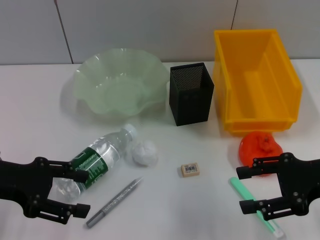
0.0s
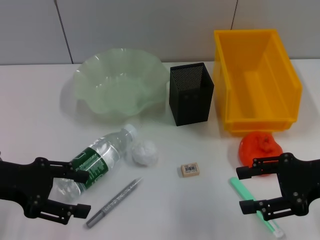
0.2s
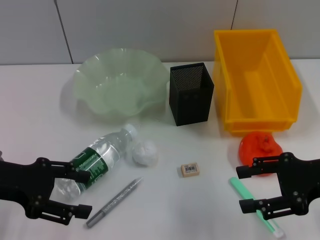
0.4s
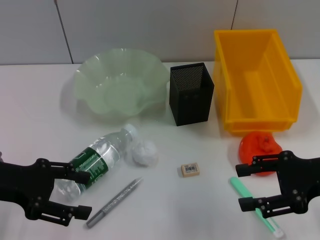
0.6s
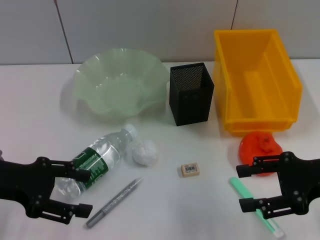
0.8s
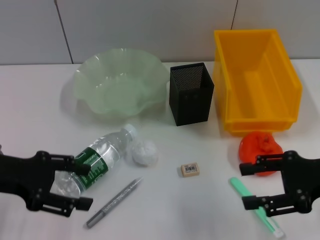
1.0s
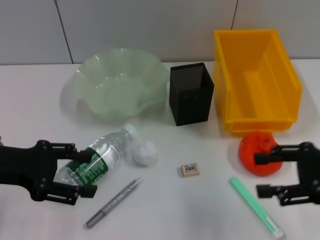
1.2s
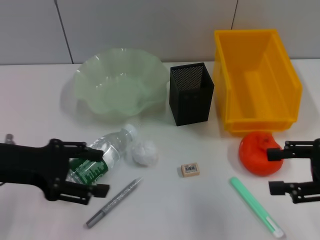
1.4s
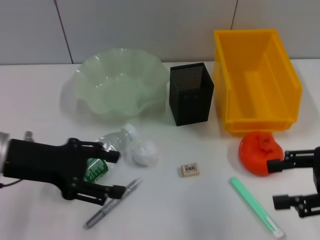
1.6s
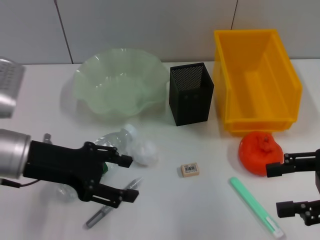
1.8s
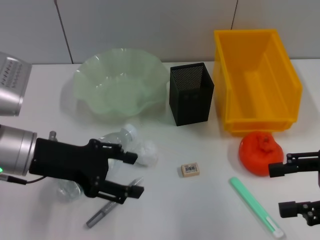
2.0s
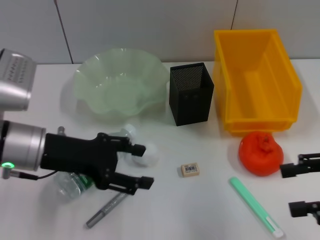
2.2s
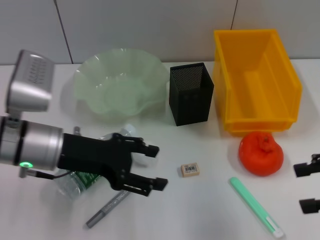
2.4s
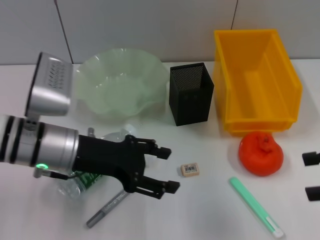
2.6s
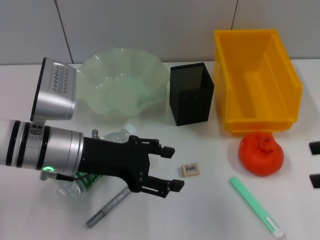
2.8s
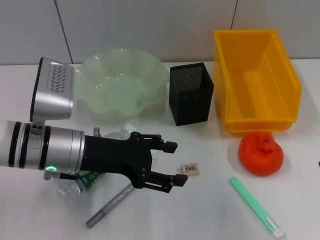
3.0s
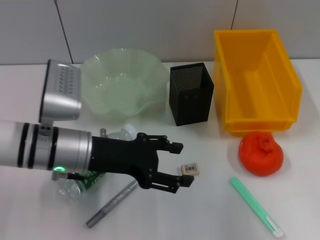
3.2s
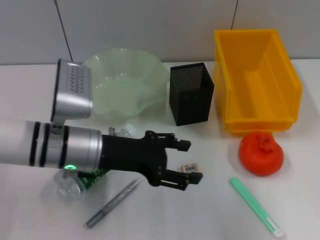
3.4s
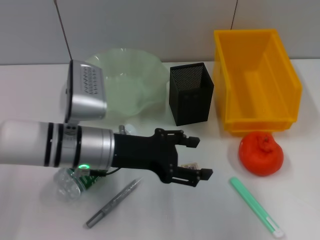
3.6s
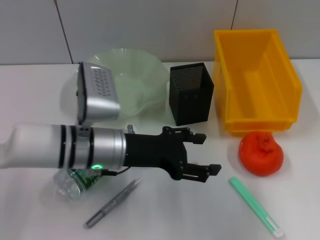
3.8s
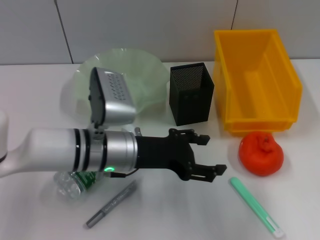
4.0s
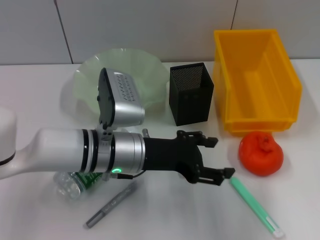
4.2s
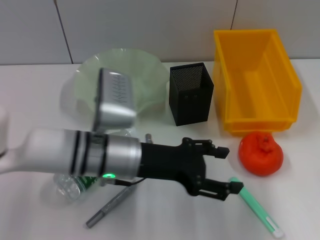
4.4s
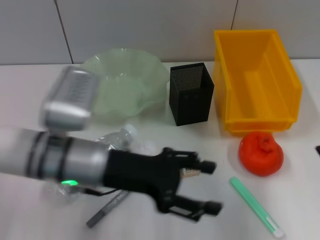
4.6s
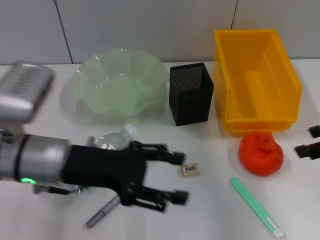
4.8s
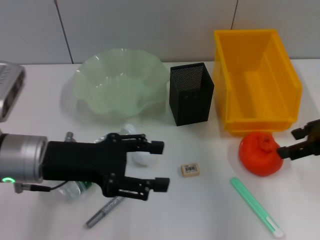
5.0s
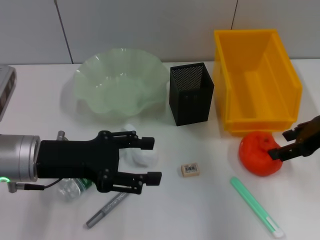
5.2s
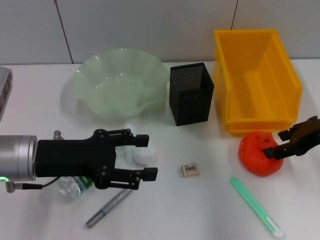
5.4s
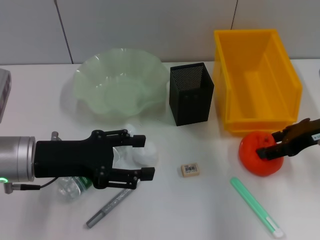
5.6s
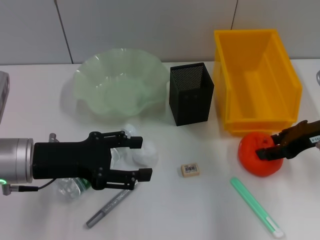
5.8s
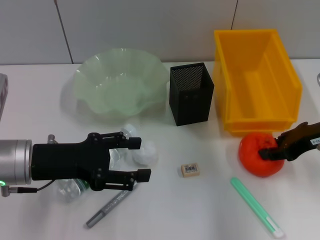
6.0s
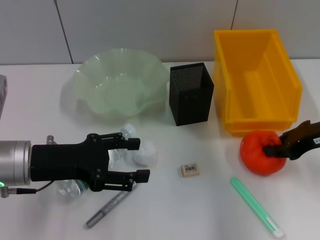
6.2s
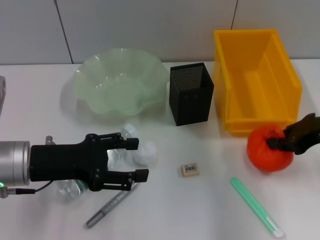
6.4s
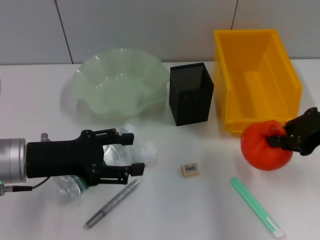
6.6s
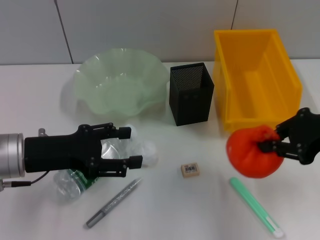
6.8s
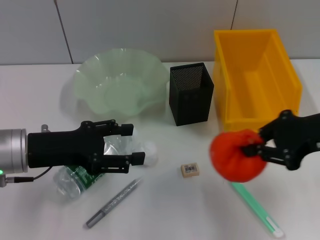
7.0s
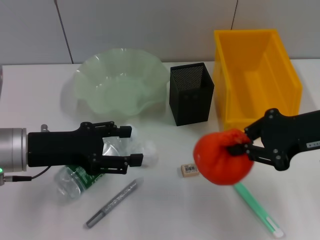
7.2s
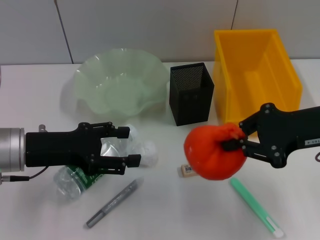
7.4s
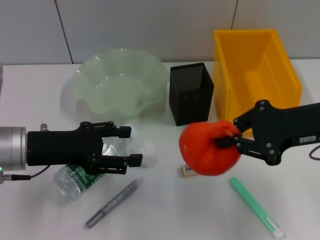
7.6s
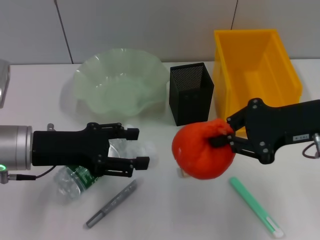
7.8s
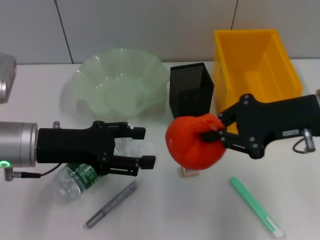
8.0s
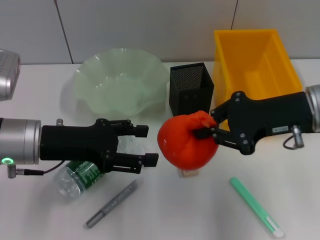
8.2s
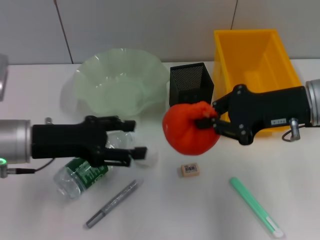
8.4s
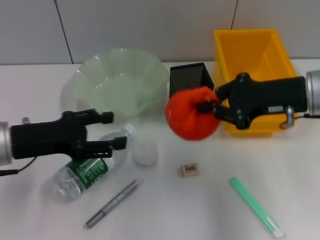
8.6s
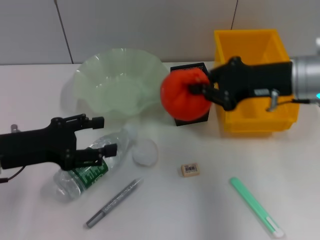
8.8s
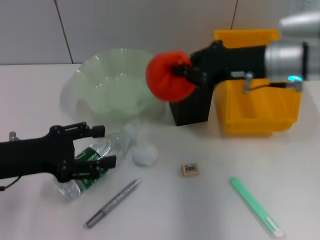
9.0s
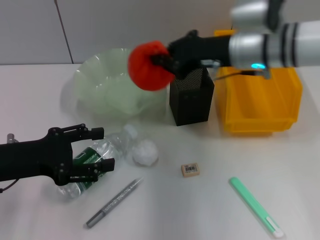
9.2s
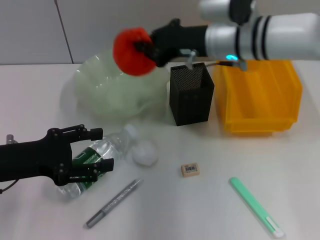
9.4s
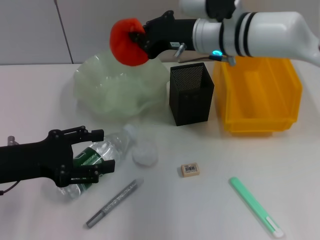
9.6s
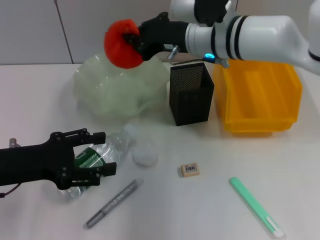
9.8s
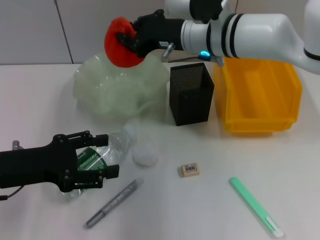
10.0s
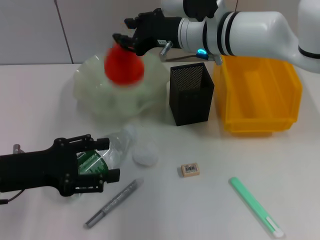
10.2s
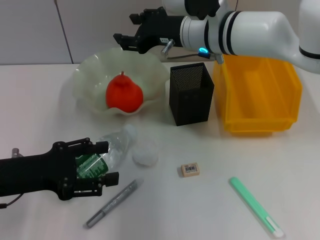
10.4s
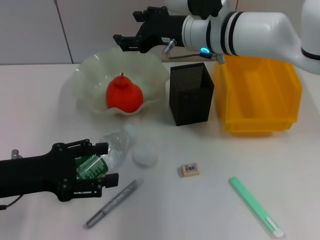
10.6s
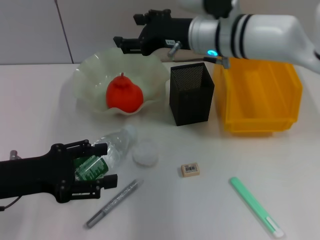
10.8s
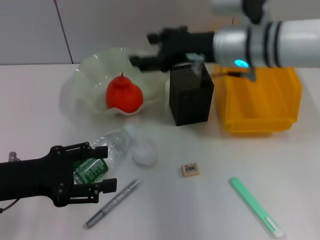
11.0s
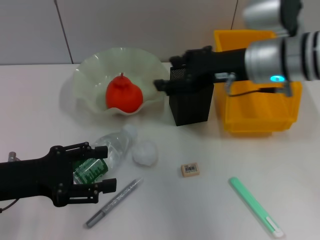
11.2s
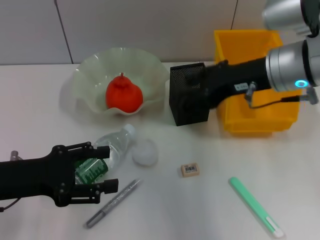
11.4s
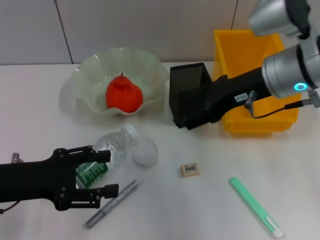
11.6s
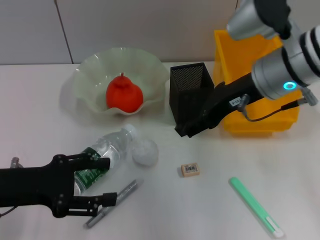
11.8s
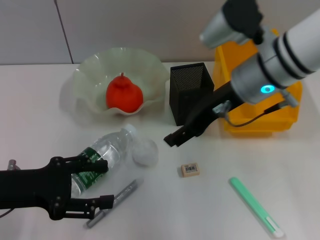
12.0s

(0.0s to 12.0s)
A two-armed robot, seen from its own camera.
Step, 0.0s - 6.0s: Grab the orange with the right hand.
Step, 6.2s - 10.2s: Place the orange into the fruit bowl with the right hand.
0.0s - 1.6s: The grippers stay close to where they were, moving slightly.
1.6s - 3.0s: The left gripper moves to the right, about 10 cm, while the right gripper shifts about 10 cm upward.
3.0s - 4.4s: The left gripper heads to the right, covering about 5 cm.
4.4s - 6.0s: The left gripper is displaced to the left by about 15 cm, while the right gripper heads downward, forward and to the left, covering approximately 15 cm.
6.0s - 7.6s: The right gripper shifts by approximately 5 cm, and closes.
7.6s - 9.0s: The right gripper heads forward and to the left, covering some 10 cm.
9.0s - 10.4s: The right gripper moves to the left and forward, approximately 10 cm, and opens its fingers.
10.4s - 12.0s: The right gripper heads backward and to the right, covering roughly 10 cm.

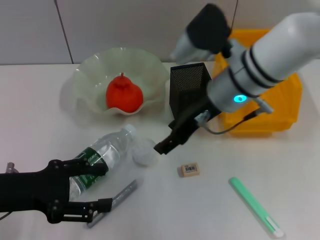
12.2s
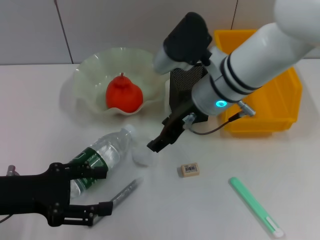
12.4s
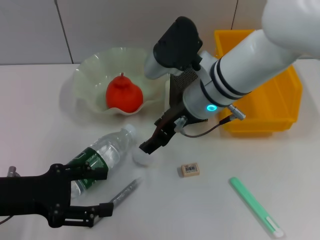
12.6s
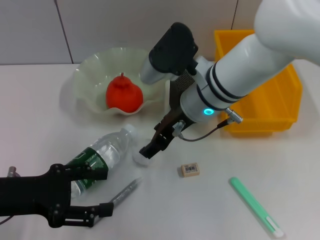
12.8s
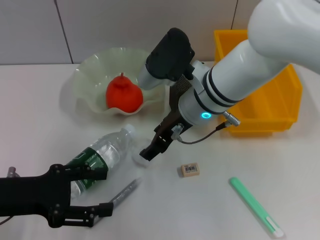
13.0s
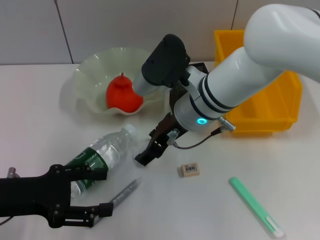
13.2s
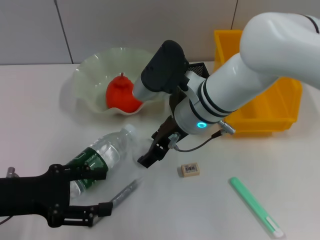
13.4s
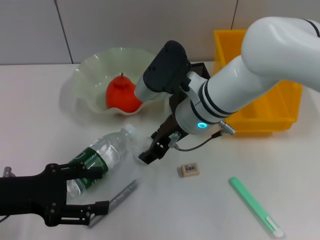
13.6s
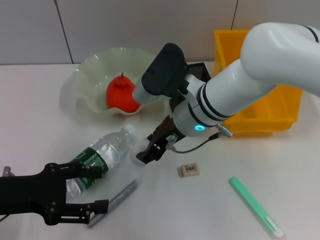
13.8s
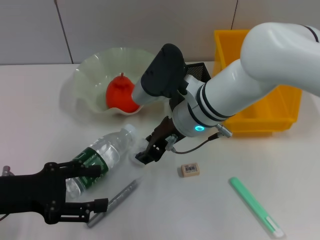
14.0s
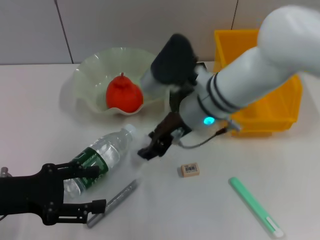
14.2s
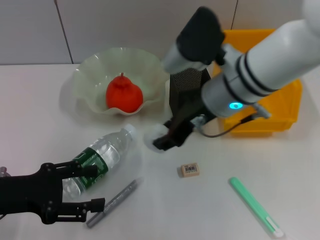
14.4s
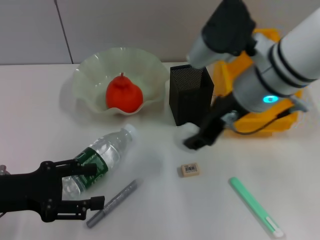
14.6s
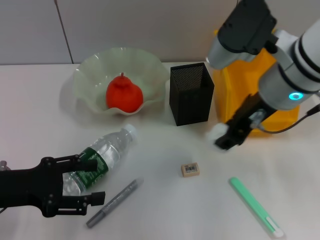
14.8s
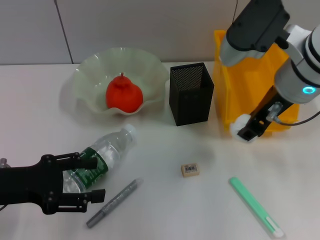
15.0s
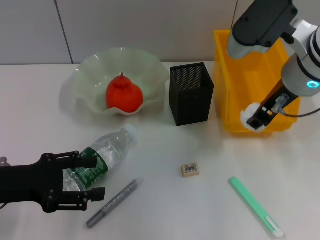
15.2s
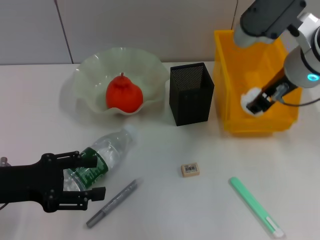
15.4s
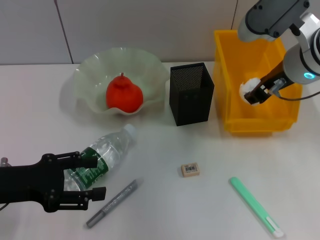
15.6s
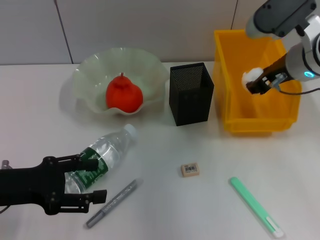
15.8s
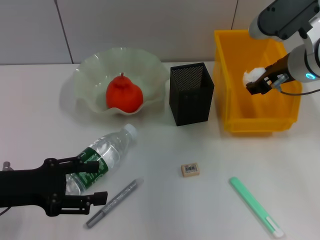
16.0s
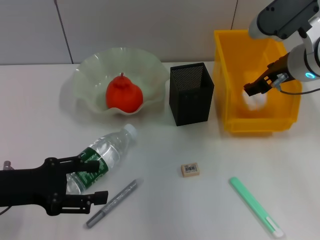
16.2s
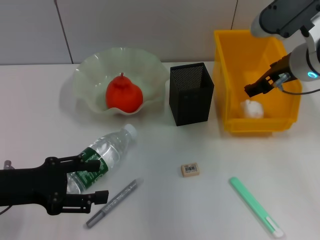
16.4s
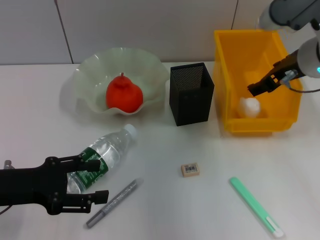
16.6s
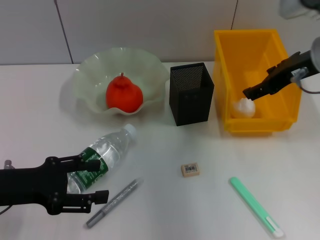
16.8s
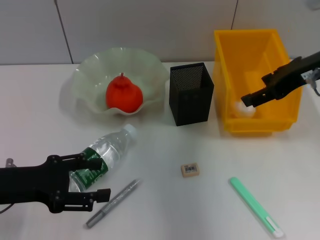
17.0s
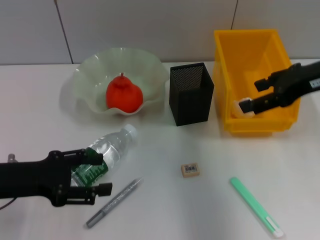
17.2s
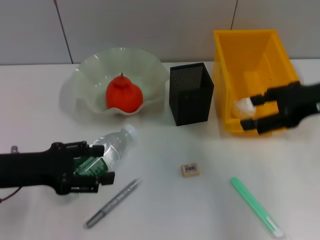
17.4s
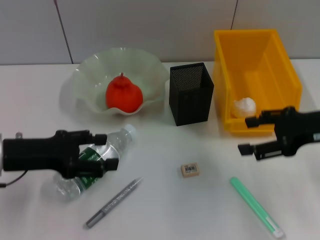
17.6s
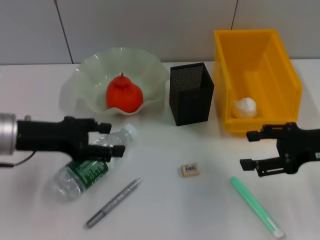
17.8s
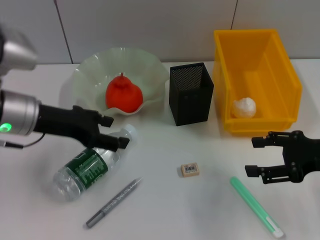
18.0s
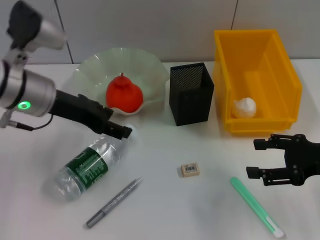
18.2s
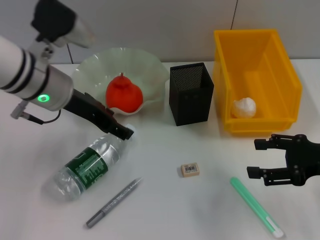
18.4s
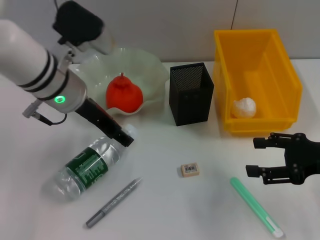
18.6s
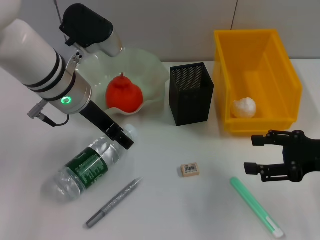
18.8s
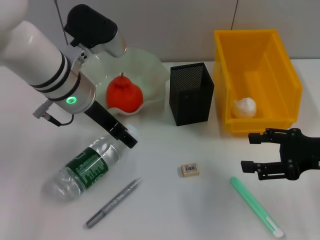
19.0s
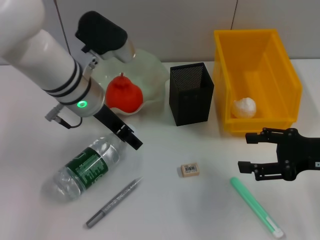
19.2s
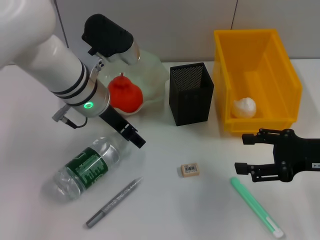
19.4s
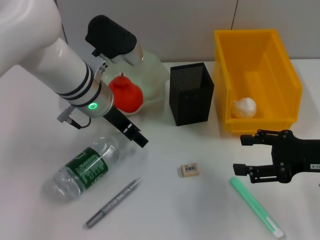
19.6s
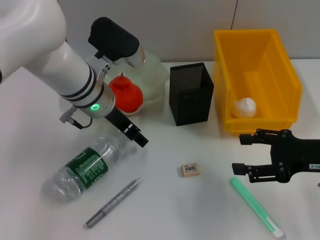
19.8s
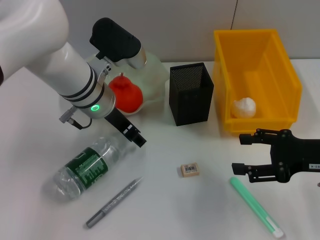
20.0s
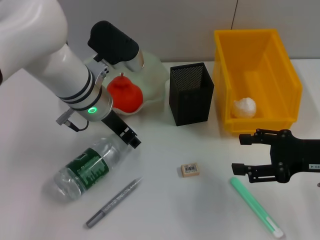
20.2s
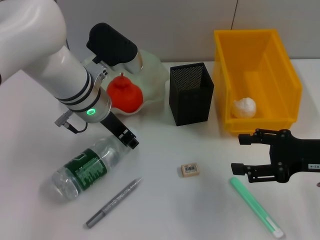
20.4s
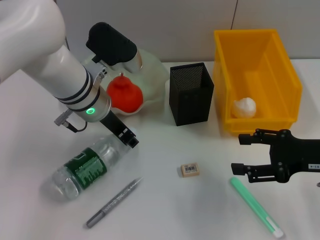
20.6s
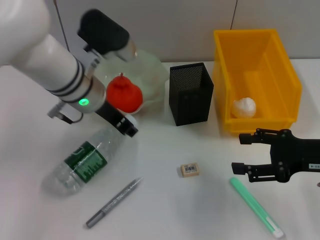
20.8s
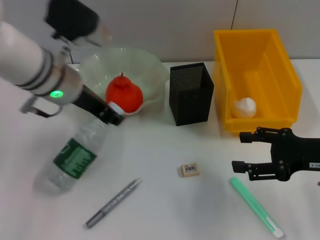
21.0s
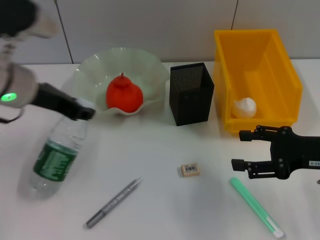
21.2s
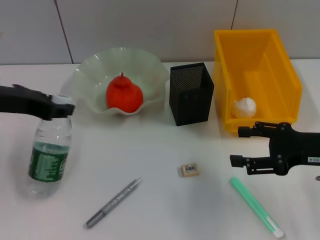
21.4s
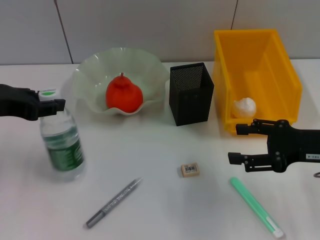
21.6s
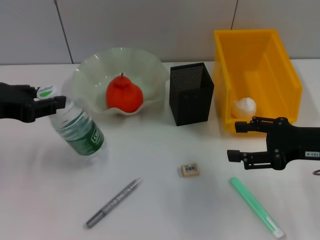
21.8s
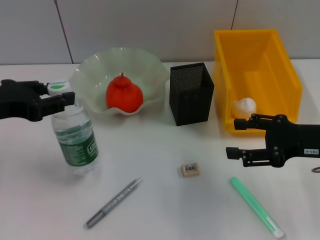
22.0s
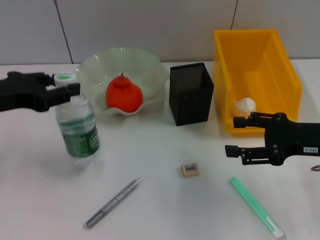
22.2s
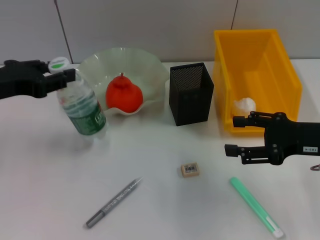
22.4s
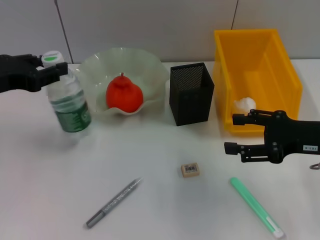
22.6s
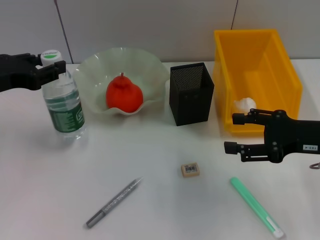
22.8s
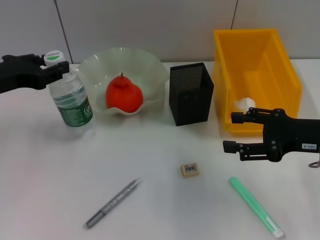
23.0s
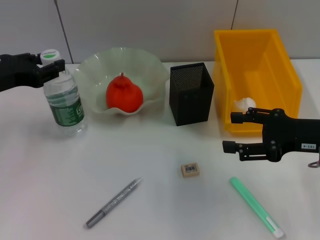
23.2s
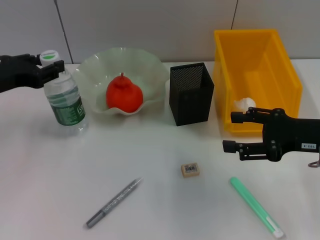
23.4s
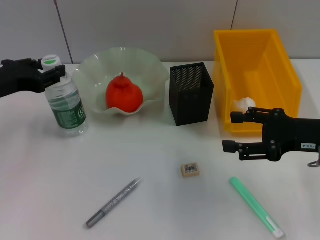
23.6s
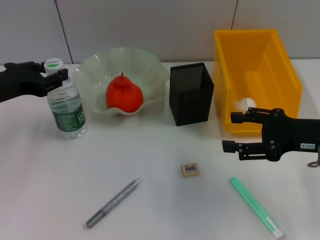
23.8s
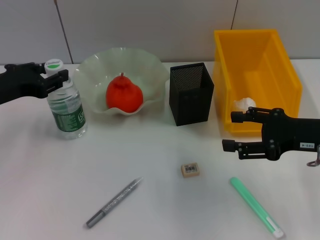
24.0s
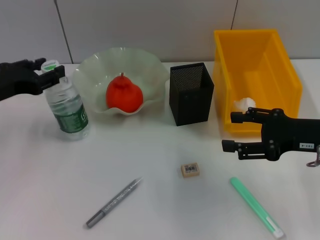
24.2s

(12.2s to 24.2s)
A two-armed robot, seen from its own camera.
Step, 14.0s - 16.2s: Place the paper ball into the trash can with the right hand.
Step, 16.4s - 20.4s: Grab the water bottle with the left hand.
12.2s - 13.8s: The right gripper shifts approximately 5 cm downward.
13.8s - 15.2s: The right gripper shifts about 15 cm to the right and upward.
15.2s - 16.6s: The right gripper moves approximately 5 cm, and opens up.
16.6s - 18.2s: The left gripper moves forward, to the right and upward, roughly 15 cm, while the right gripper heads backward, to the right and downward, covering approximately 20 cm.
18.2s - 19.8s: The left gripper is displaced to the right by about 10 cm.
19.8s - 21.2s: The left gripper shifts approximately 5 cm to the left, and closes.
21.2s - 22.6s: The left gripper heads to the left and backward, covering some 15 cm.
22.6s - 24.2s: There are only small adjustments of the grippers.
